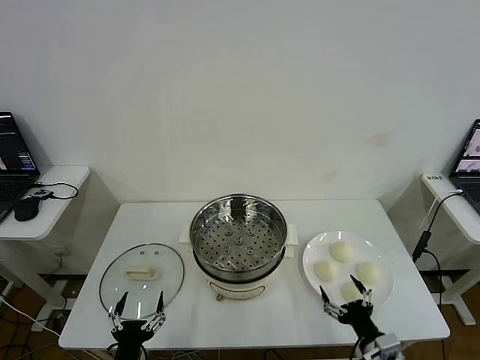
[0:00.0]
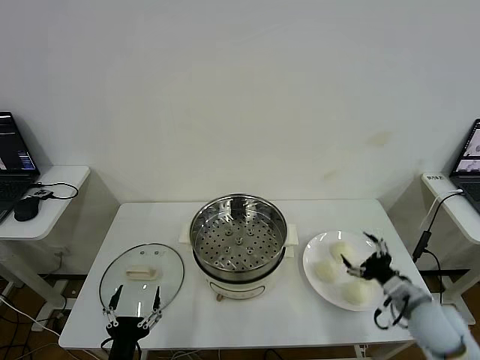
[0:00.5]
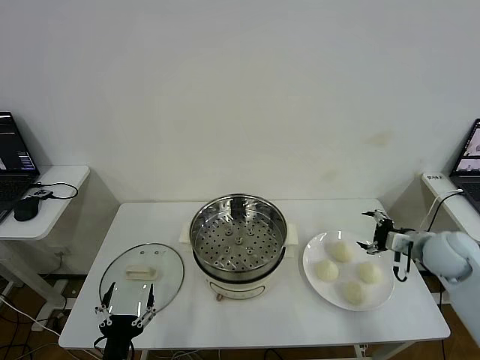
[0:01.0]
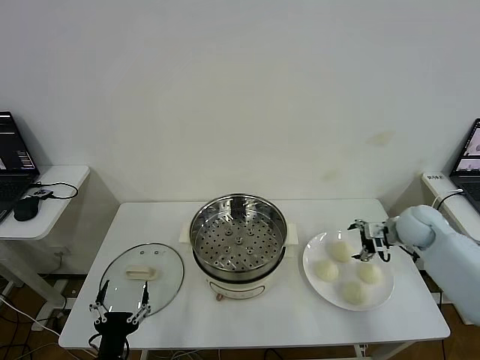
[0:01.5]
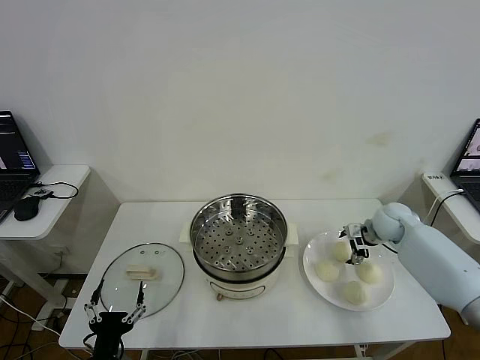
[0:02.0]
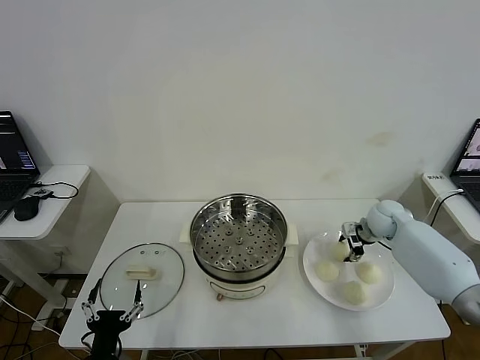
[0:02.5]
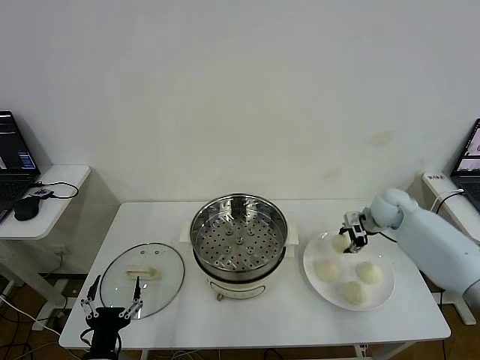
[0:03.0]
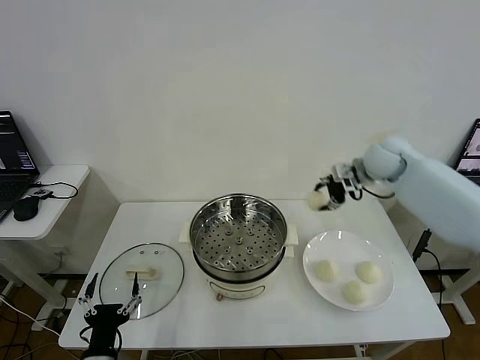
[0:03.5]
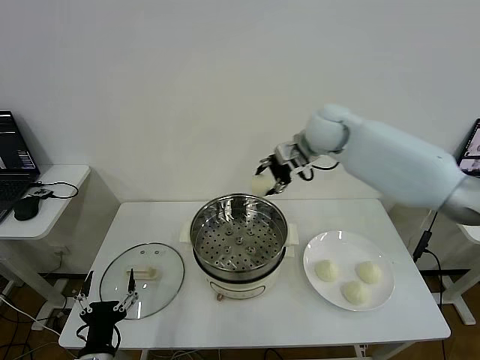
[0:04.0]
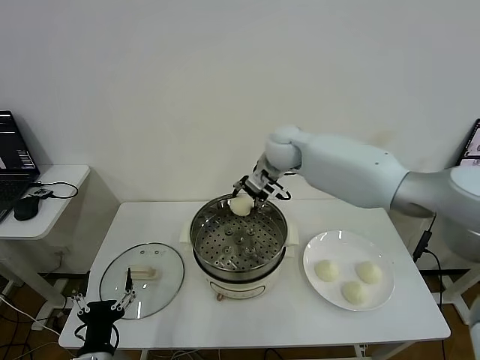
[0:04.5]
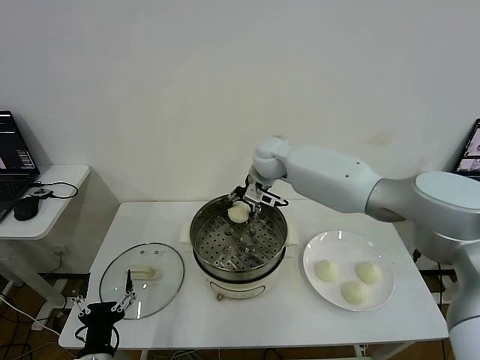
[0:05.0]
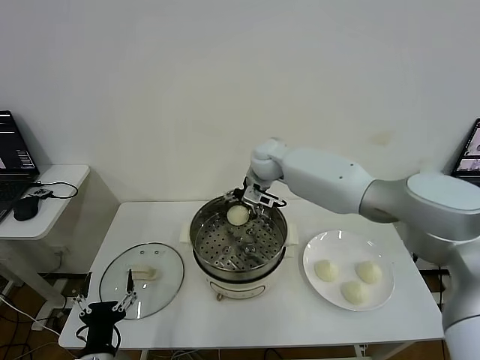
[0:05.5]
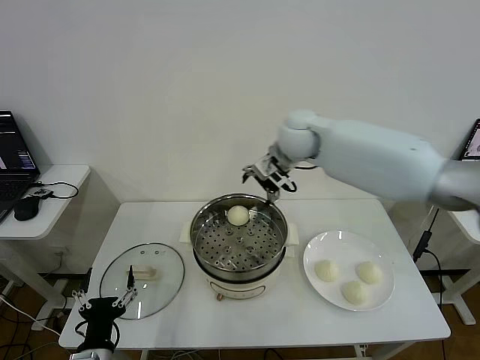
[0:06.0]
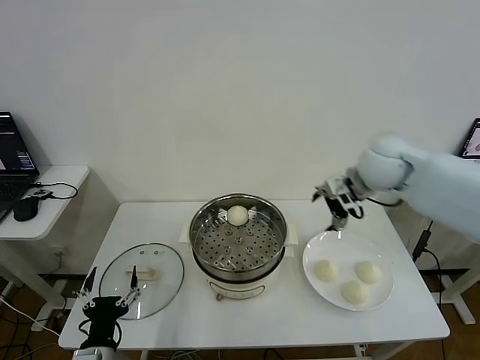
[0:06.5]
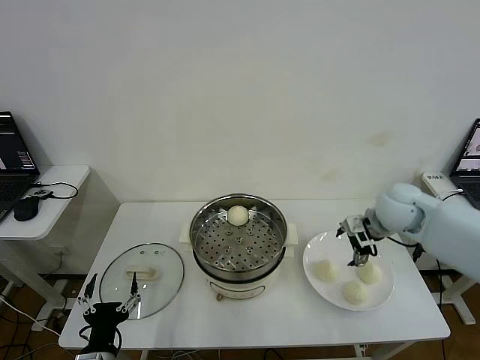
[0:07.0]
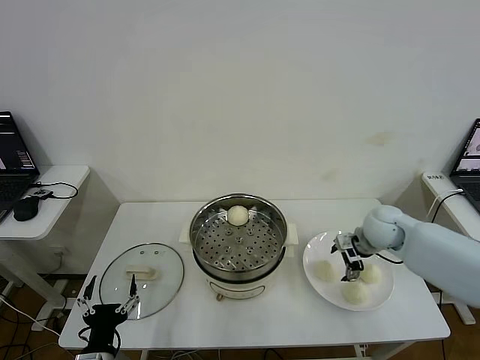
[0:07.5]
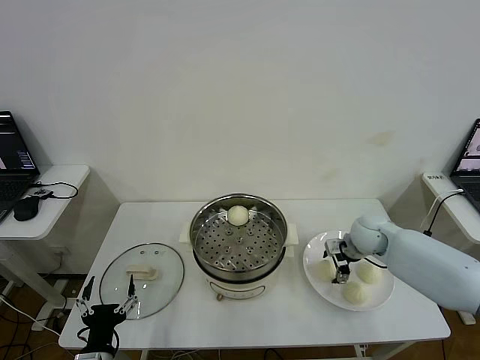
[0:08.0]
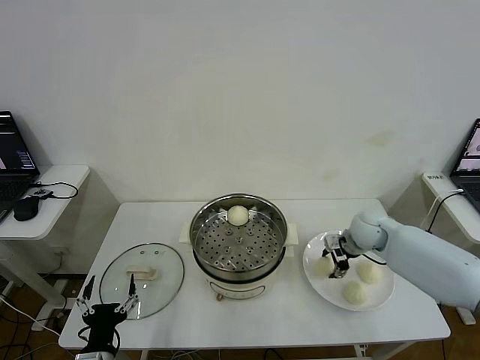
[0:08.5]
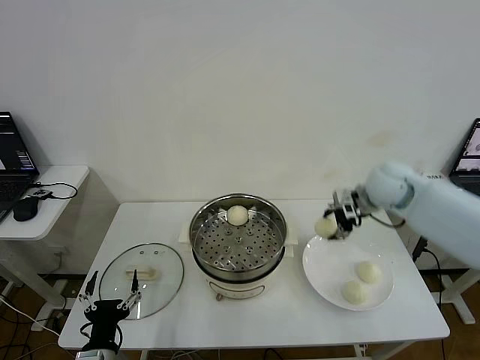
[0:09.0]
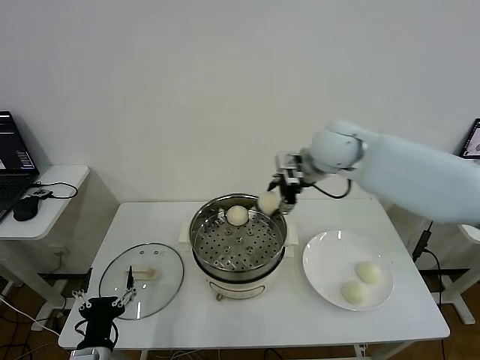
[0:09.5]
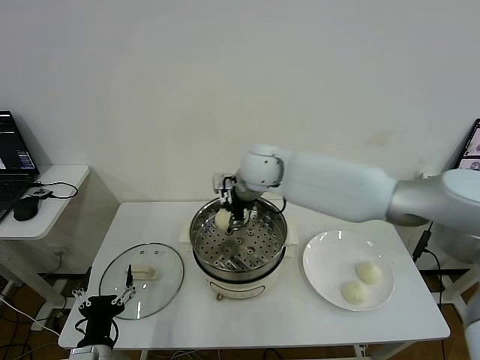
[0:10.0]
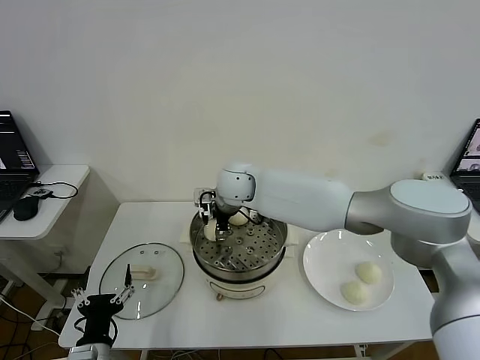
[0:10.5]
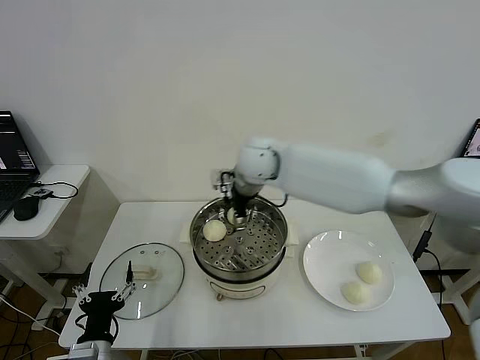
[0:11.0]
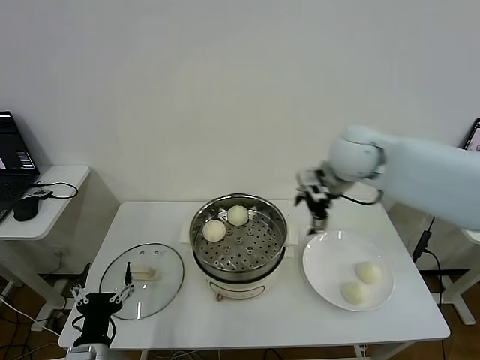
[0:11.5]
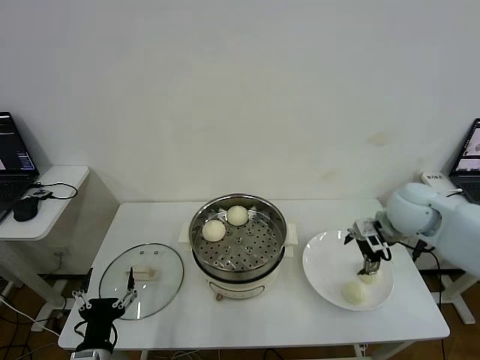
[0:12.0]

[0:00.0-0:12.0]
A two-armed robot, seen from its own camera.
Step, 0.0 to 2.5 s: Grasp the baozi in the plate with right gripper.
Step, 3.0 to 5.0 s: Place the baozi on the steamer with right gripper.
Step, 5.5 to 8.0 s: Grasp the baozi in the plate with right gripper.
Step, 8.5 to 10.5 s: Place the baozi on the steamer with right gripper.
2.0 to 4.0 s: The right gripper is displaced to the left and upward by approximately 35 cm, and closes its fingers.
4.0 to 6.0 s: The right gripper reaches roughly 10 cm downward, then returns, and opens.
6.0 to 8.0 s: The right gripper heads downward and to the right, covering roughly 30 cm.
8.0 to 10.0 s: The right gripper shifts about 35 cm to the left and upward.
10.0 to 12.0 s: The right gripper heads to the right, covering approximately 35 cm, and opens its fingers.

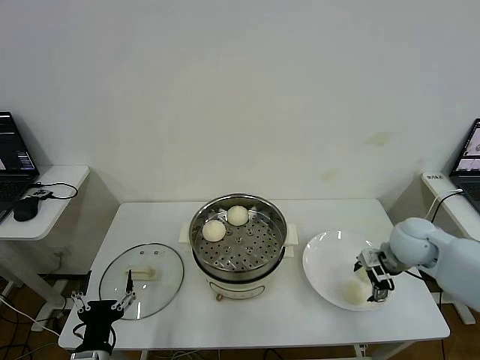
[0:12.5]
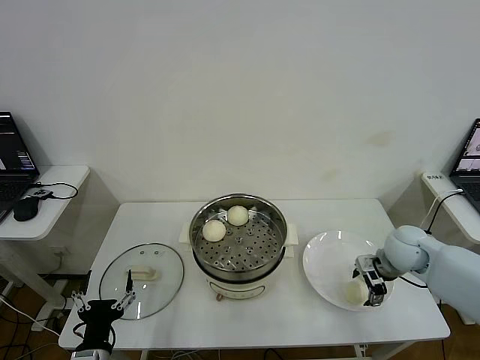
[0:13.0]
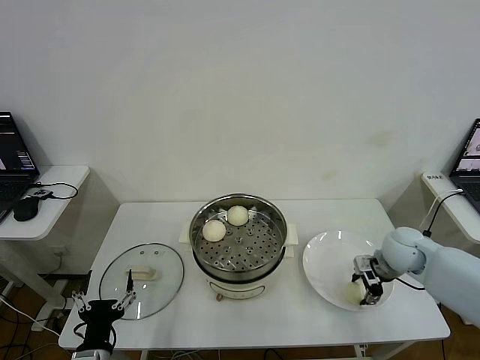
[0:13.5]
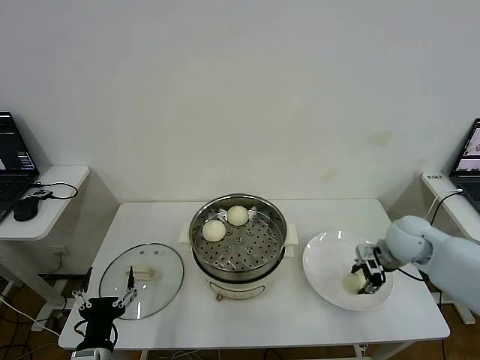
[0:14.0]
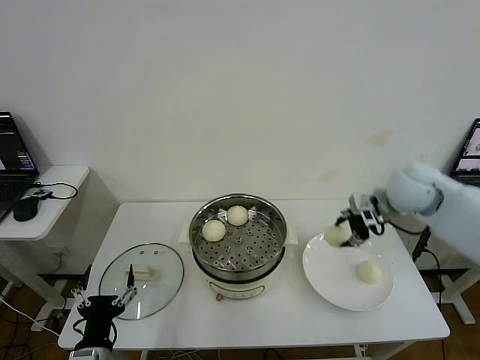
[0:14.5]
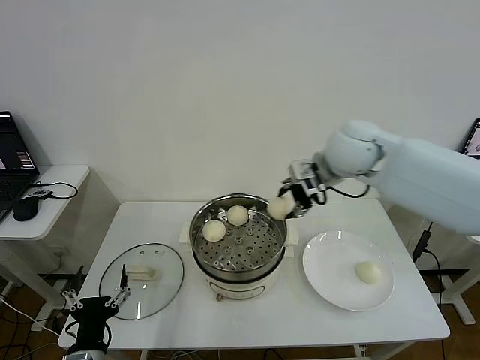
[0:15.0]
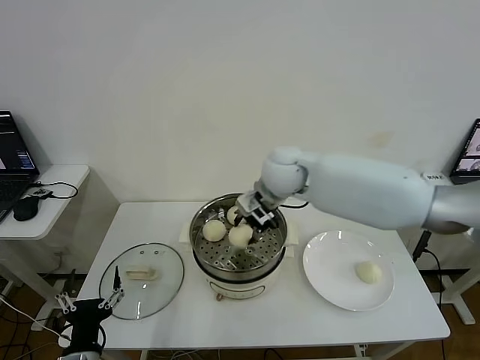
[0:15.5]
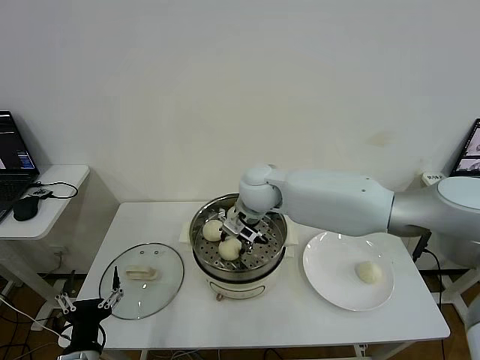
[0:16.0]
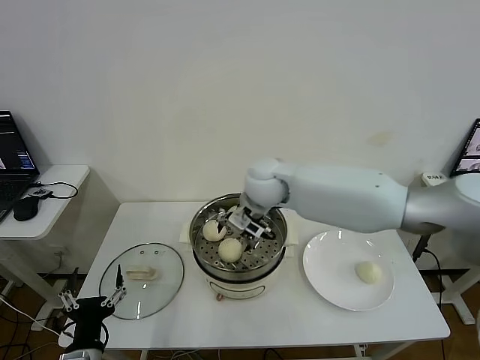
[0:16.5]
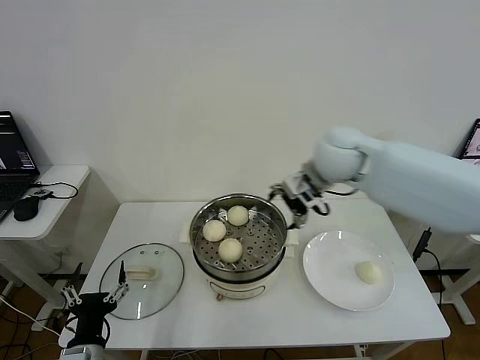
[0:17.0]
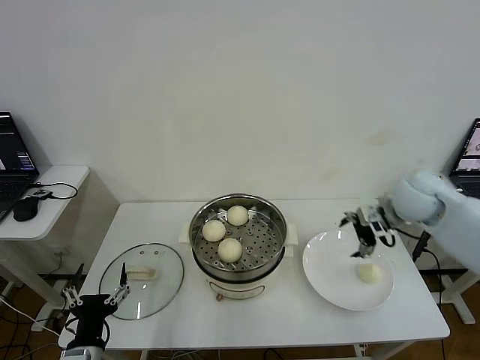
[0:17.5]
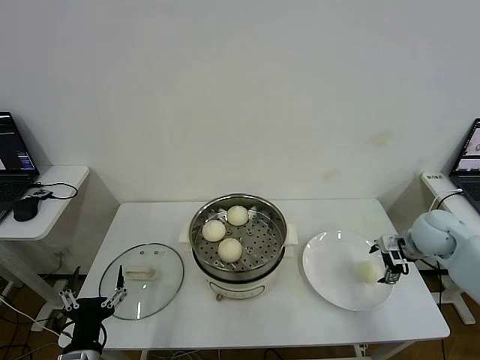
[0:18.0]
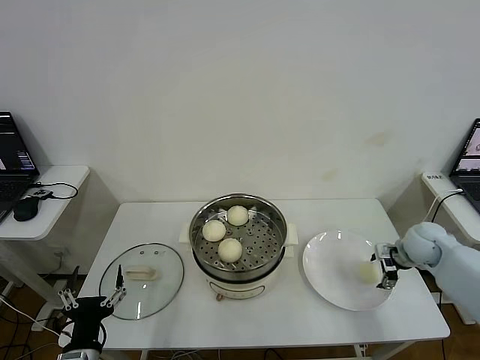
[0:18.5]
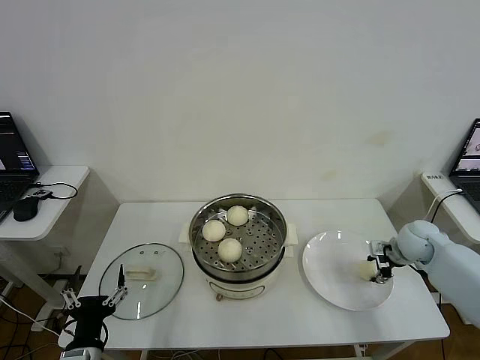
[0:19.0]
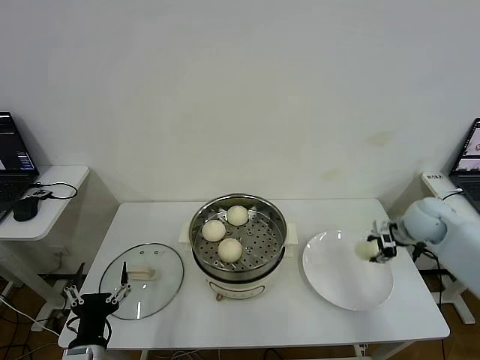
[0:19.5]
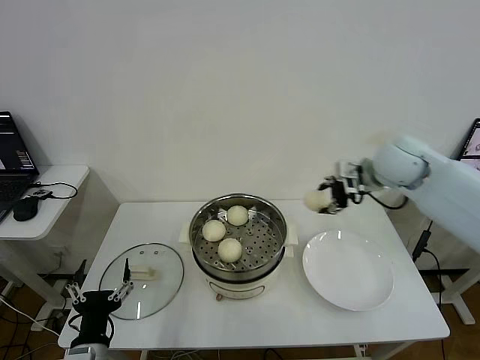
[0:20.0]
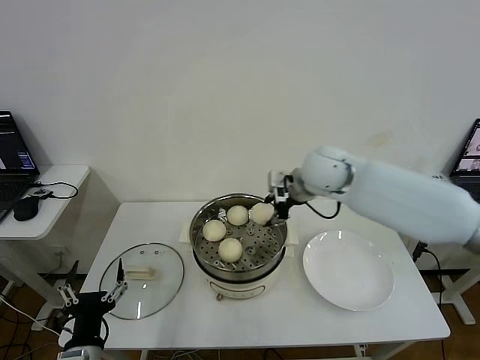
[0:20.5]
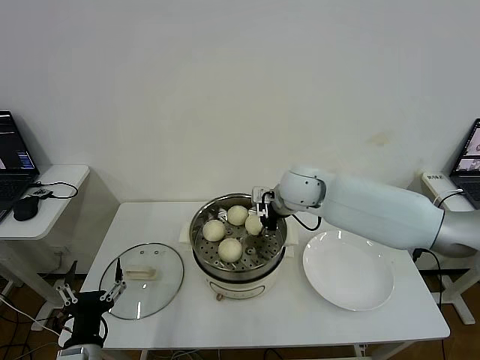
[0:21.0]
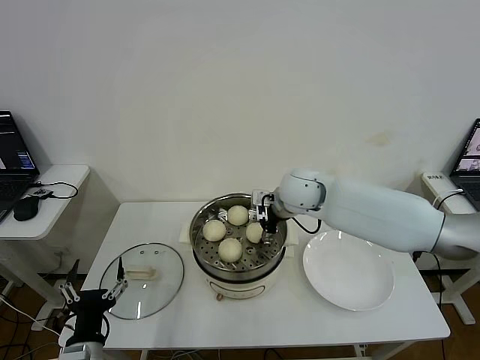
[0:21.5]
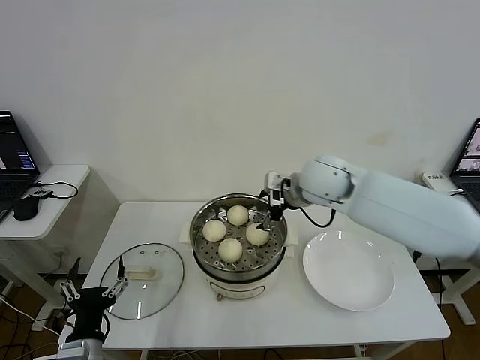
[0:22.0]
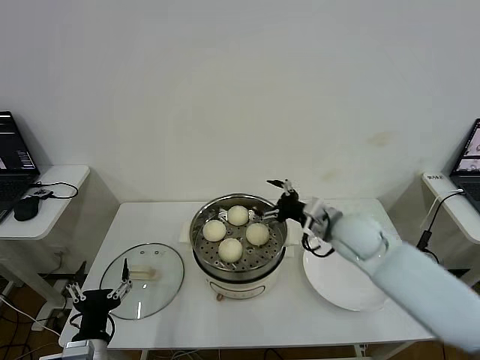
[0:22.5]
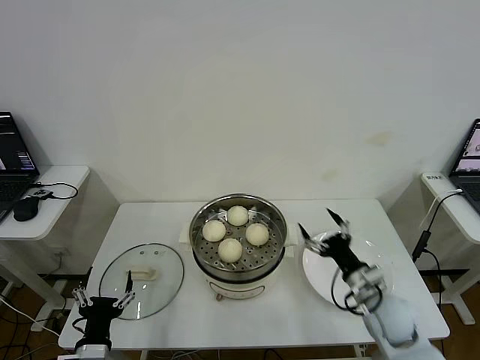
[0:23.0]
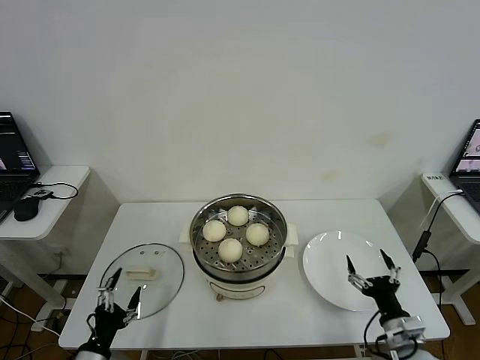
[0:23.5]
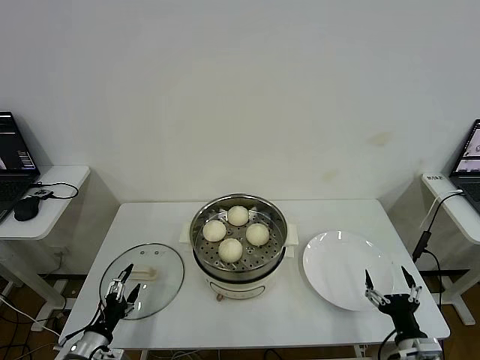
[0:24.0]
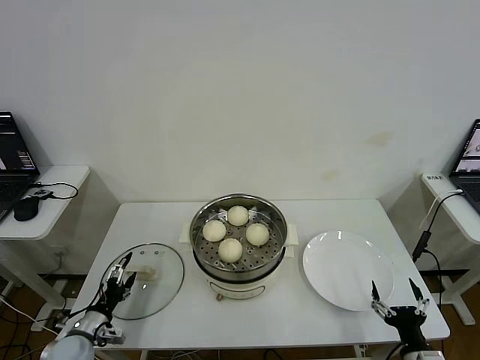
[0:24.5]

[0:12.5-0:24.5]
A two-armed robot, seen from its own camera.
Step, 14.0 to 16.0 s: Place the baozi on the steamer with right gripper.
Step, 16.5 to 18.5 s: Grasp the baozi in the plate with right gripper.
Step, 19.0 to 21.5 s: Place the baozi on the steamer with right gripper.
12.5 to 14.5 s: The right gripper goes approximately 15 cm upward, and closes up.
14.5 to 16.5 s: The right gripper moves to the left, roughly 25 cm, and opens up.
16.5 to 18.5 s: The right gripper moves to the right and downward, approximately 40 cm.
18.5 to 20.5 s: The right gripper travels to the left and upward by some 35 cm, and closes.
20.5 to 22.5 s: The right gripper heads downward, backward and to the right, covering roughly 15 cm, and opens.
22.5 to 24.5 s: The right gripper goes some 35 cm backward, downward and to the right. Meanwhile the left gripper moves to the left, downward and forward, about 20 cm.

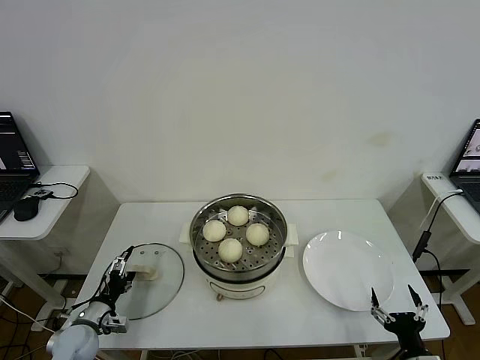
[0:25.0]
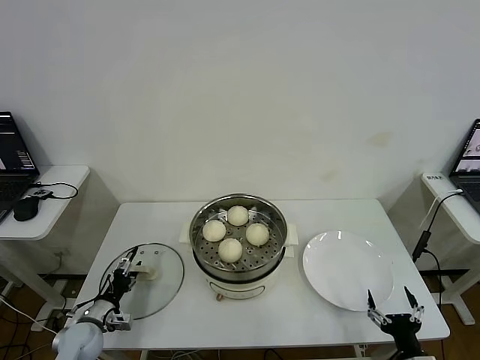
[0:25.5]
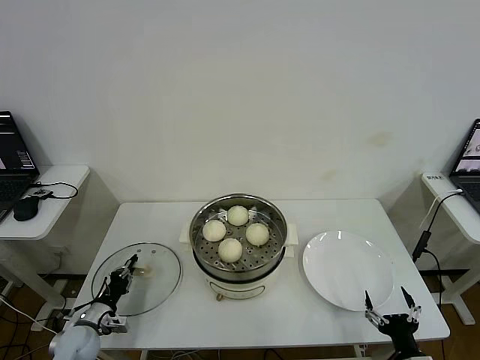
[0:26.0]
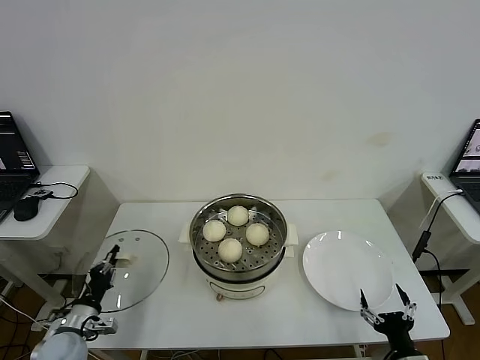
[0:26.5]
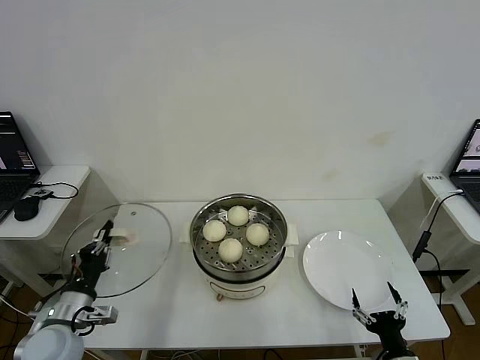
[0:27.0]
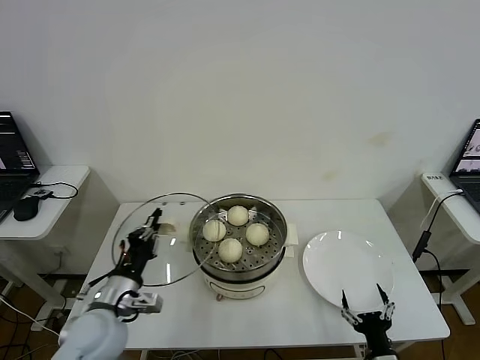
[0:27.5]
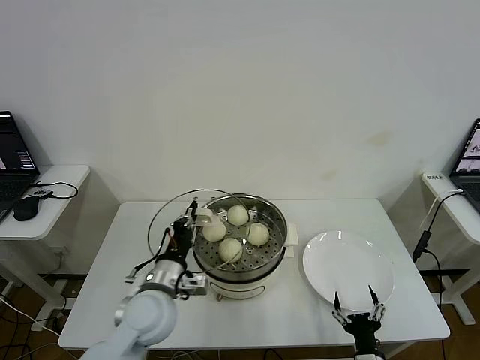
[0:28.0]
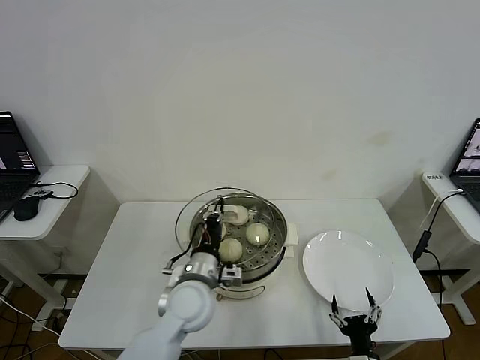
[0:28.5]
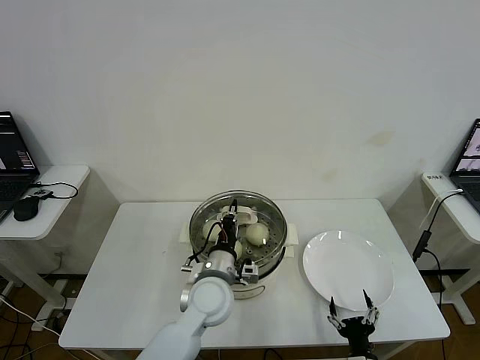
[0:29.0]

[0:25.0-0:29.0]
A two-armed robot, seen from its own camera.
25.0 to 27.0 s: The left gripper moves upward, roughly 15 cm, and closes its fingers.
27.0 to 29.0 s: The right gripper goes approximately 5 cm to the left; the left gripper moves to the right, about 30 cm.
